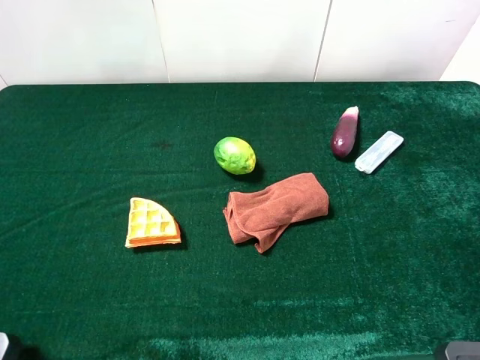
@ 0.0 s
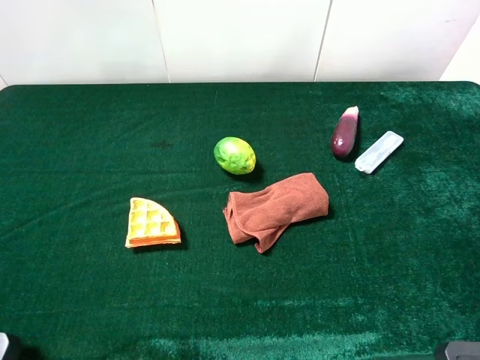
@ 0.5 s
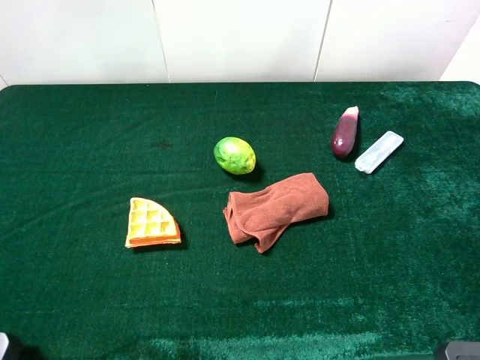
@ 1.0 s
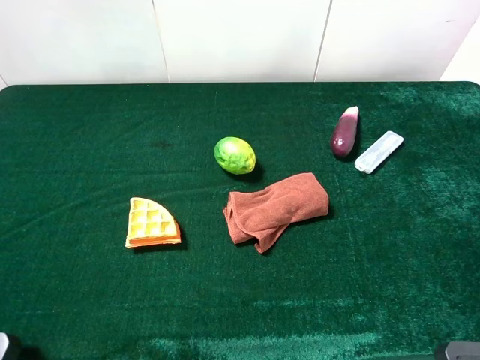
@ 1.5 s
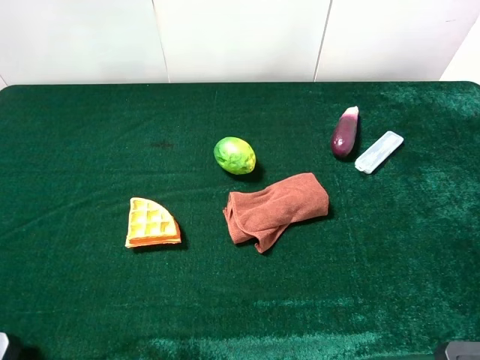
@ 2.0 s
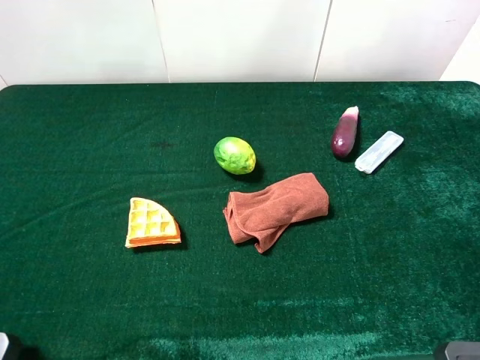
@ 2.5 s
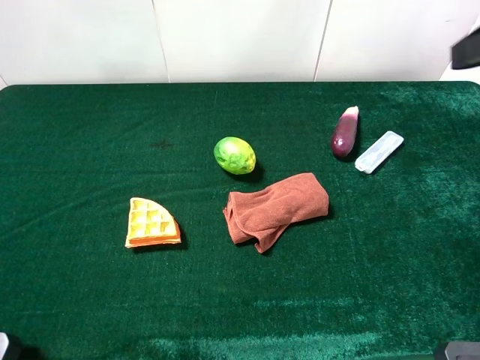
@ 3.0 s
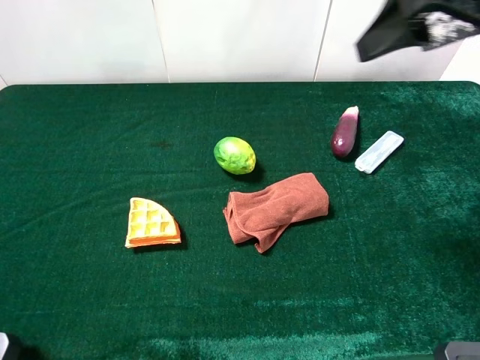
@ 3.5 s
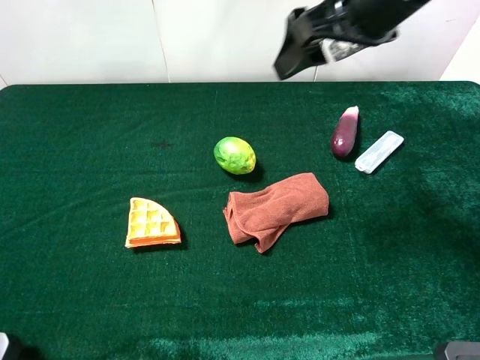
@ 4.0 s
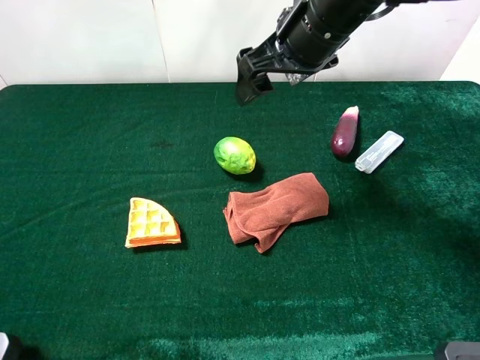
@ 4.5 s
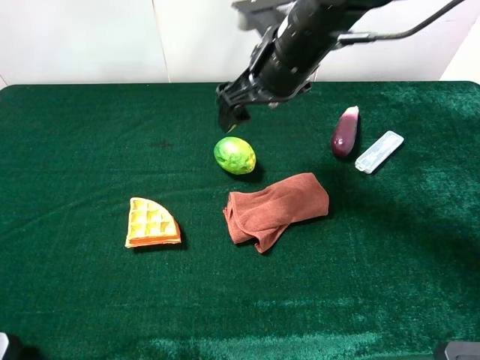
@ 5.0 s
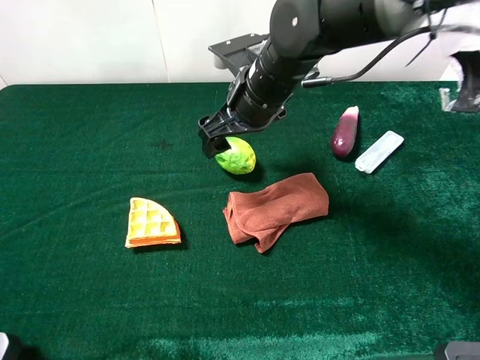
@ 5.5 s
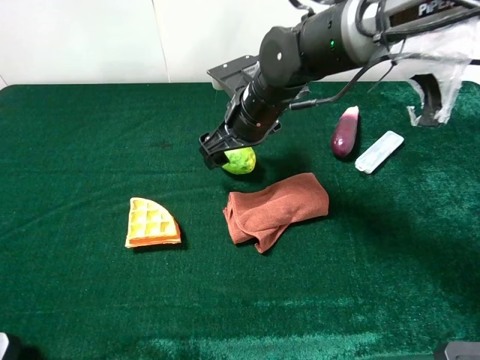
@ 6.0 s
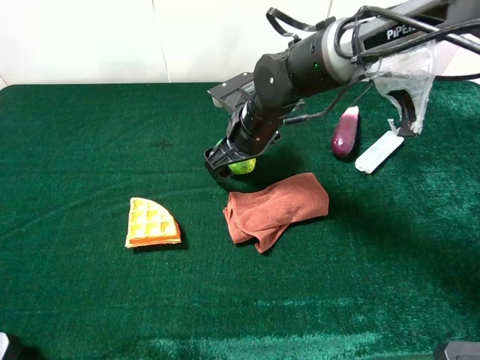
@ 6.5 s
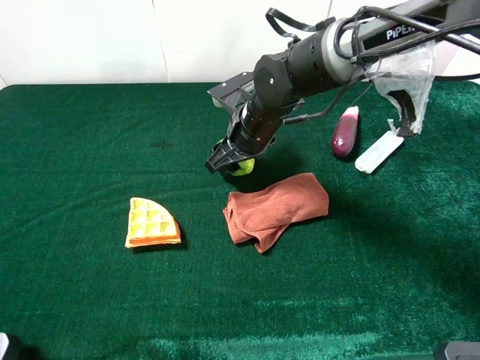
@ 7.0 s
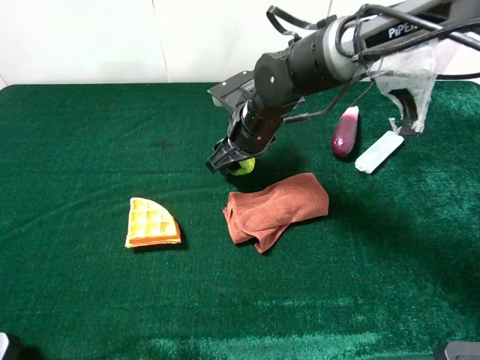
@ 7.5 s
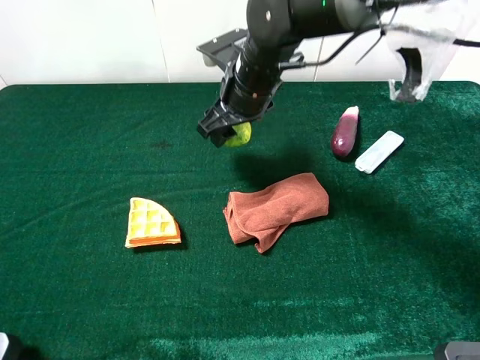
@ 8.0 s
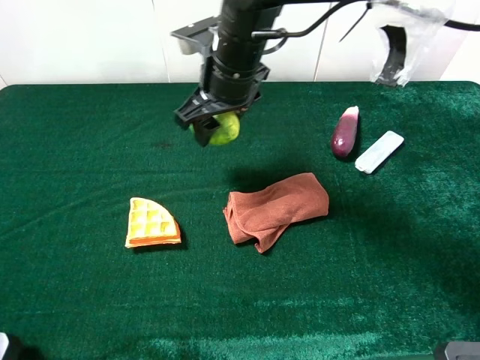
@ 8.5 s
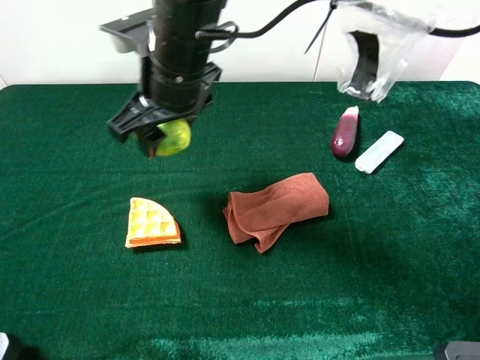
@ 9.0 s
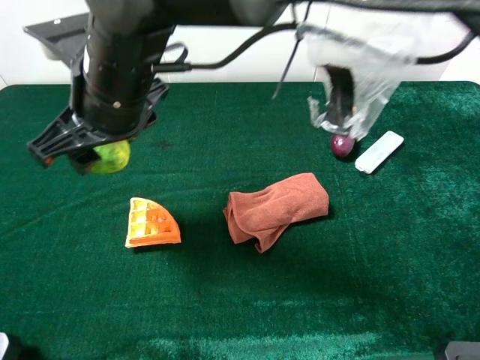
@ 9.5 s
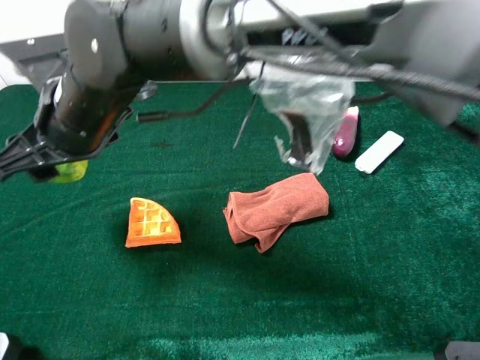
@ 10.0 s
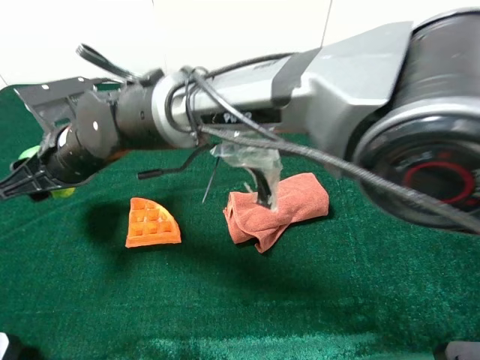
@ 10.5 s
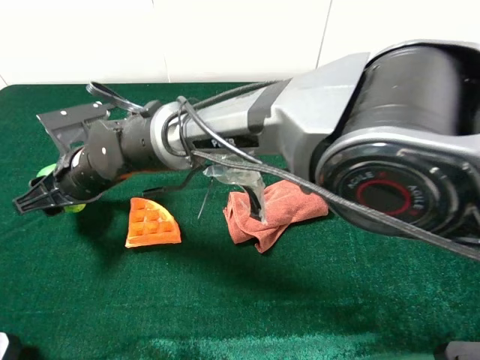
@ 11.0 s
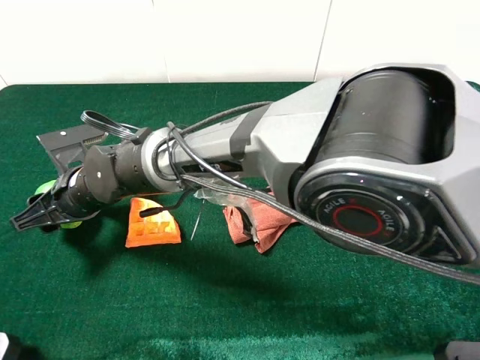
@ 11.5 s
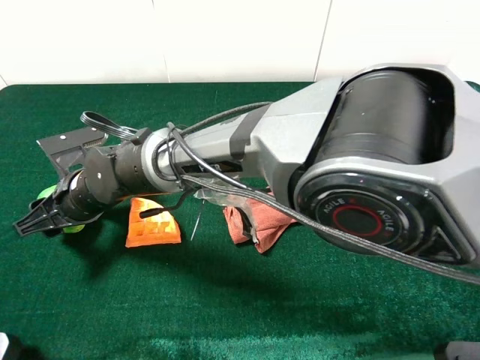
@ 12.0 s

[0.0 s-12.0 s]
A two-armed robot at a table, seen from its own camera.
Task of the whole recording: the gripper move the object.
Step, 0.0 to 7.0 s: Grasp the green lemon with the right gripper.
2.0 to 4.0 s: The right gripper heads forward and to the left, covering approximately 30 cm.
4.0 to 6.0 s: The right gripper heads downward and to the left, covering roughly 20 cm.
6.0 to 8.0 s: The right gripper closes its fingers.
8.0 to 10.0 s: The right gripper shifts about 20 cm to the left and backward.
10.0 to 12.0 s: The right gripper goes approximately 10 cm downward.

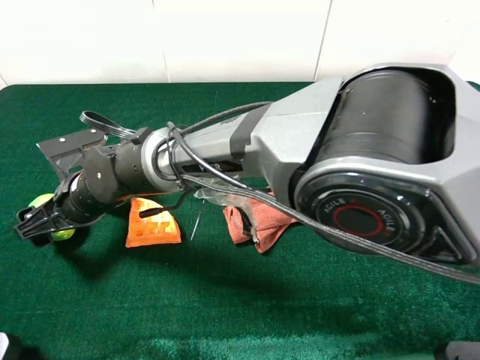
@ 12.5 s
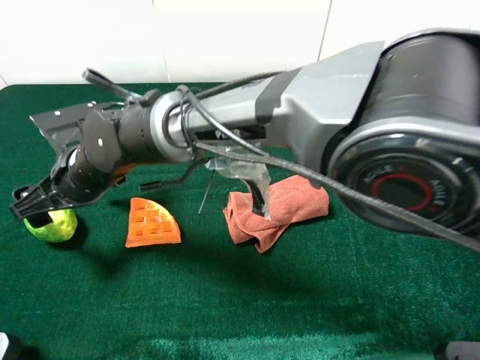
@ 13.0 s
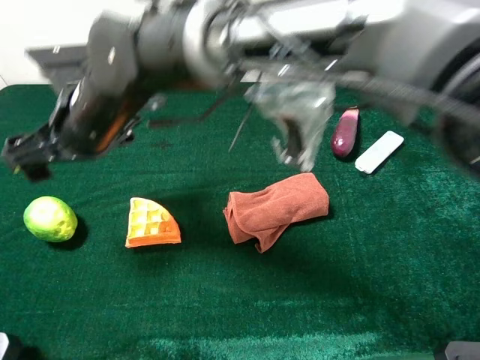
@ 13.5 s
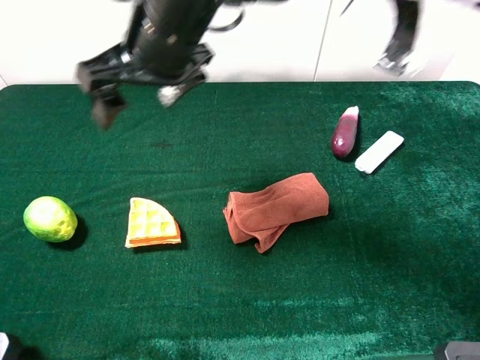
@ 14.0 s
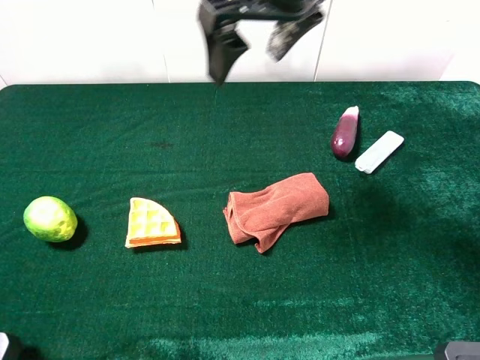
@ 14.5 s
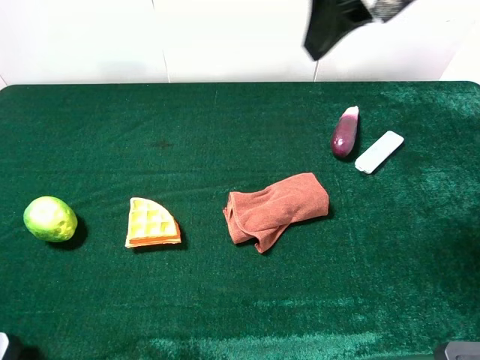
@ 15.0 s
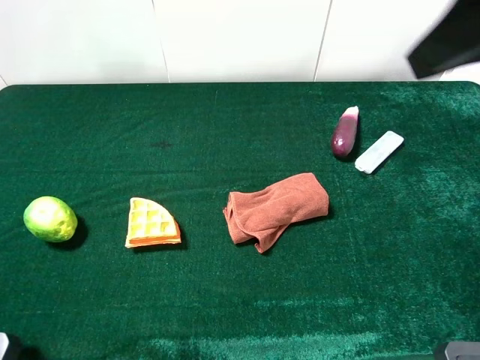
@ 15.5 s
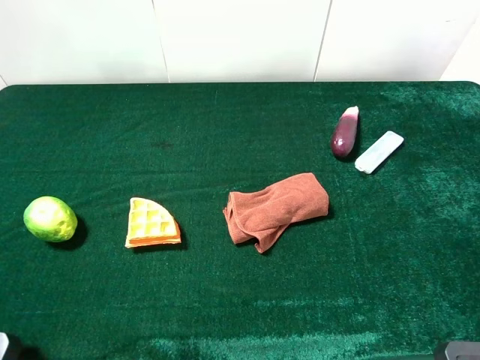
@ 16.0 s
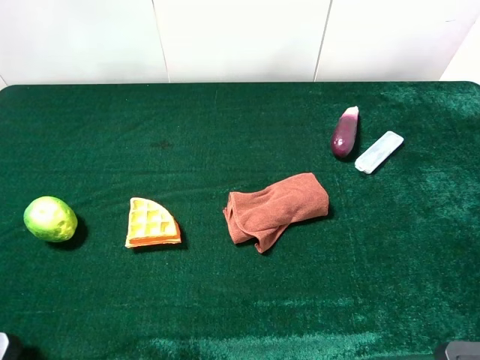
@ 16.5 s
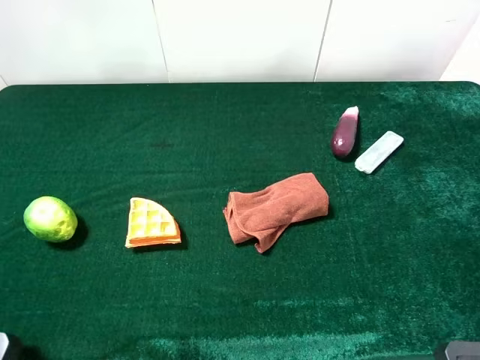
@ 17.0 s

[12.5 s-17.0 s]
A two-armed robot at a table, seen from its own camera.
Task of the whole recording: the gripper move the object.
12.5 to 14.5 s: The right gripper goes some 35 cm upward and to the right.
14.5 to 17.0 s: The right gripper moves backward and to the right, about 40 cm.
